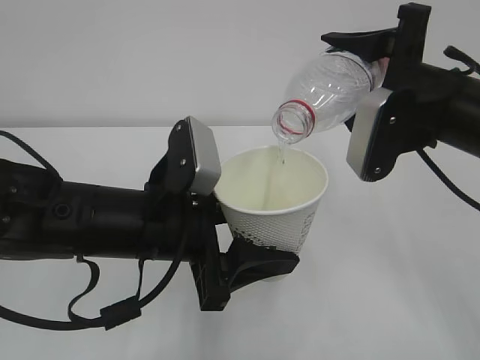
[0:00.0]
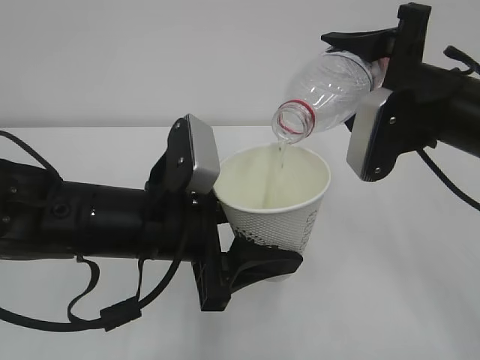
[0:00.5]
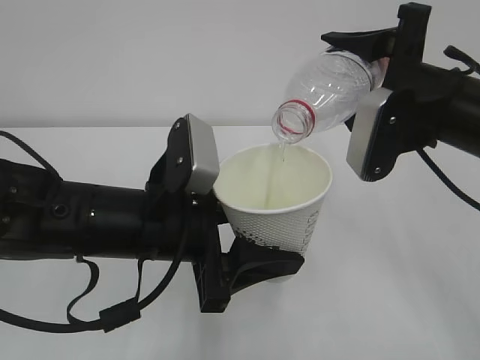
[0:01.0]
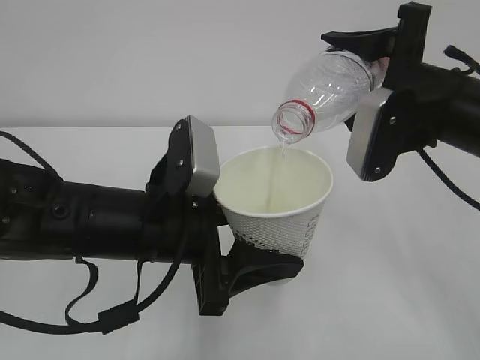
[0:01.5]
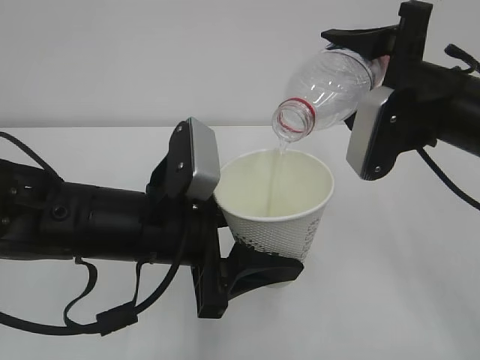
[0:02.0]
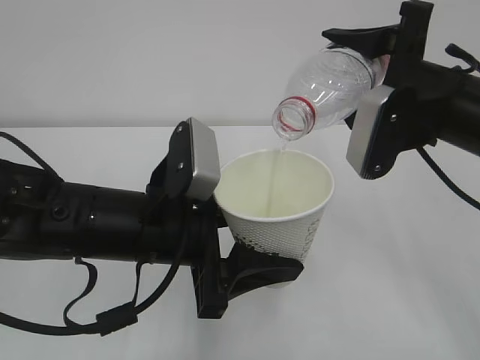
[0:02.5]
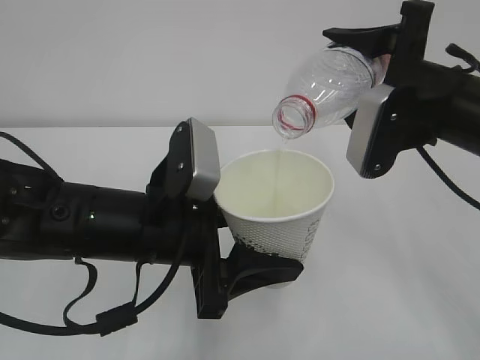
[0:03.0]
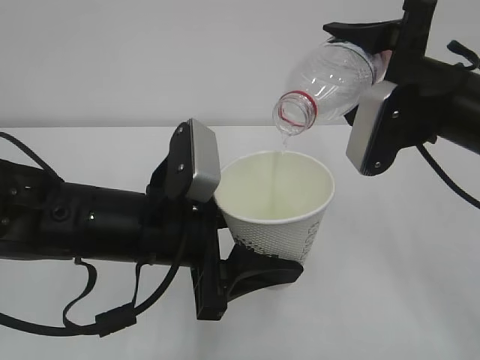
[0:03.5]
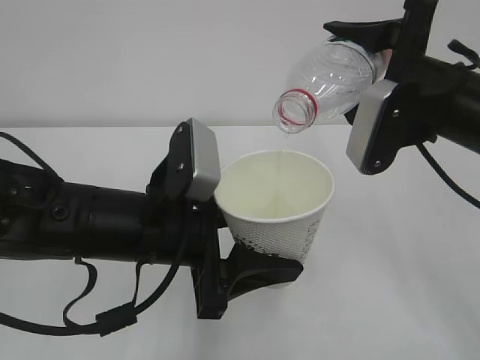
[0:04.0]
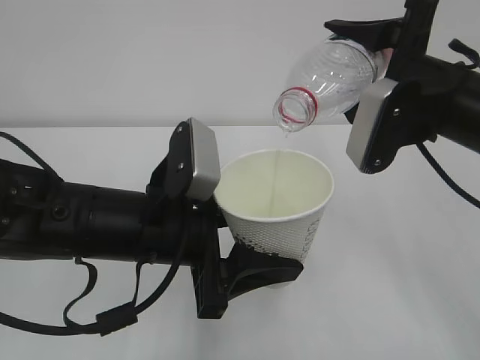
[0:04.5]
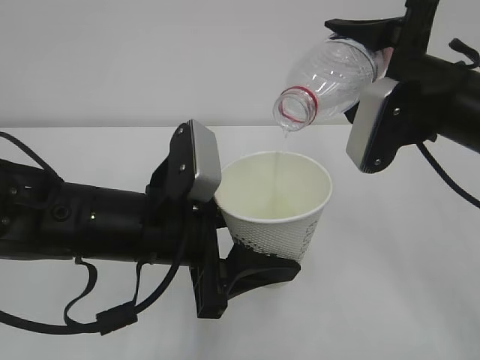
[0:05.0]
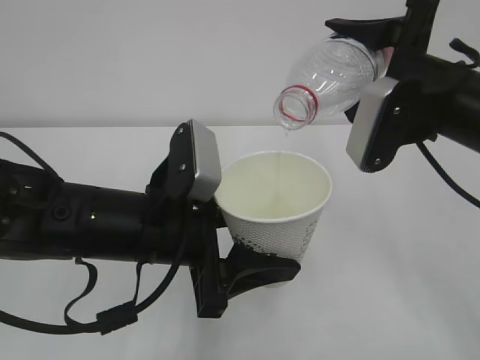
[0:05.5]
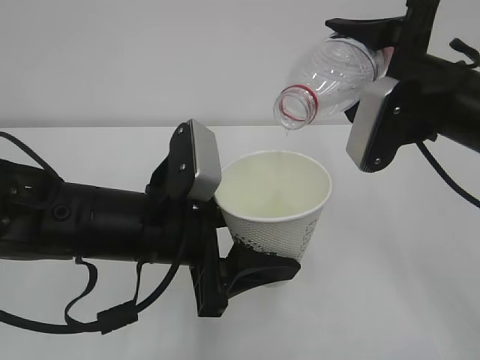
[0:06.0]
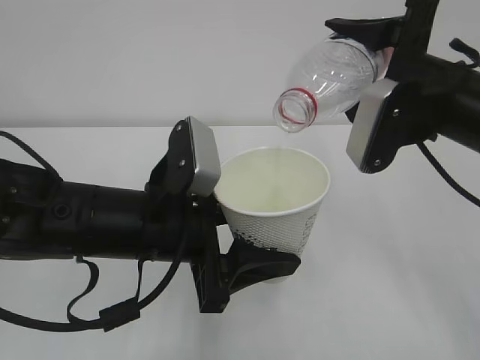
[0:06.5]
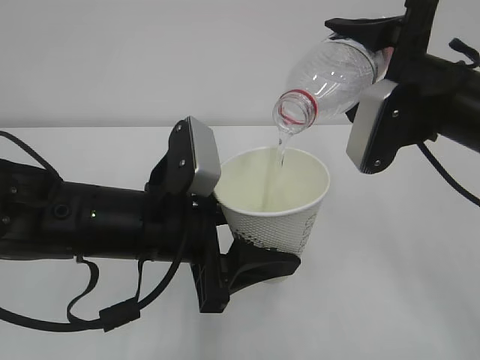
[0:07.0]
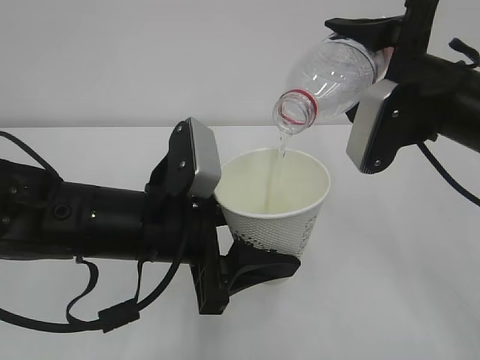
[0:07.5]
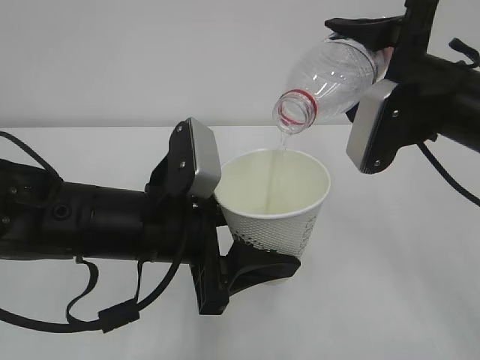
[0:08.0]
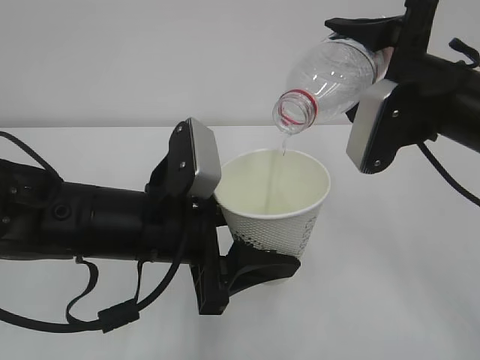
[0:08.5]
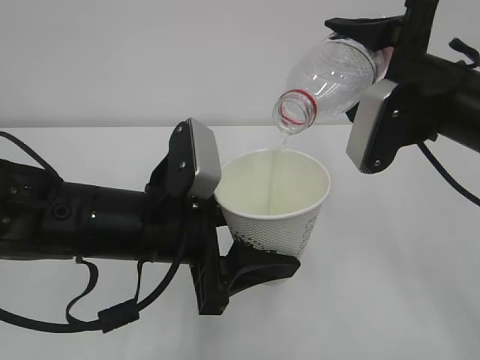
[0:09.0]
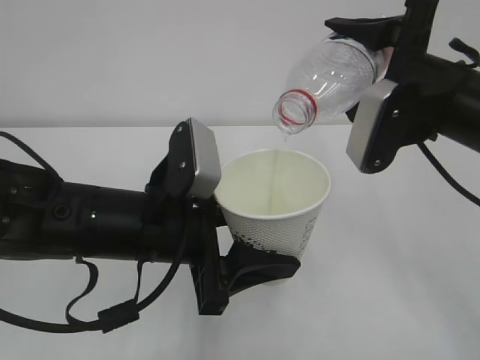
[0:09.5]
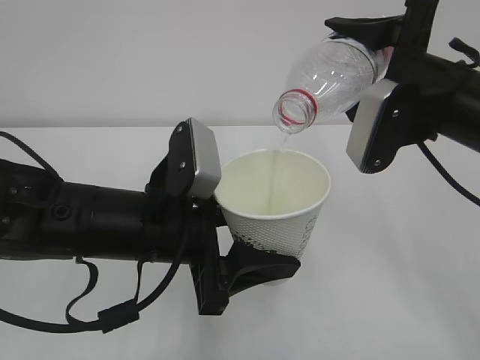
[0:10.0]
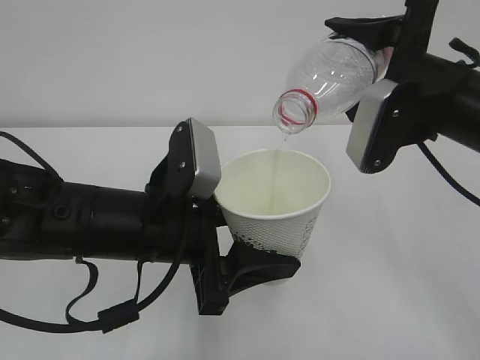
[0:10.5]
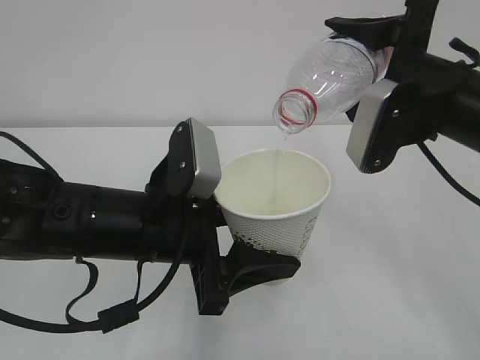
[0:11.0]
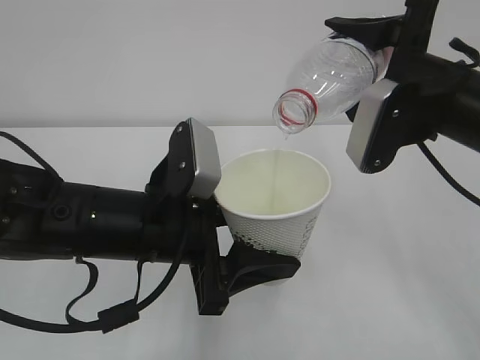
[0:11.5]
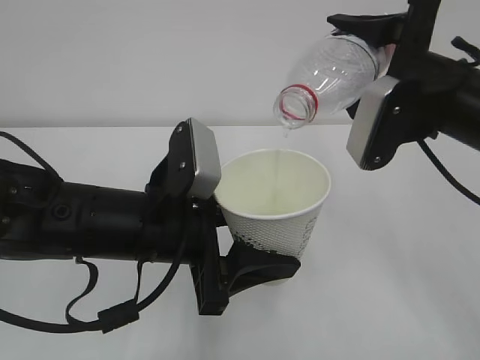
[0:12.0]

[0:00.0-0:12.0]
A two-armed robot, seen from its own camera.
0:00.0 to 0:12.0: The two grippers keep their place.

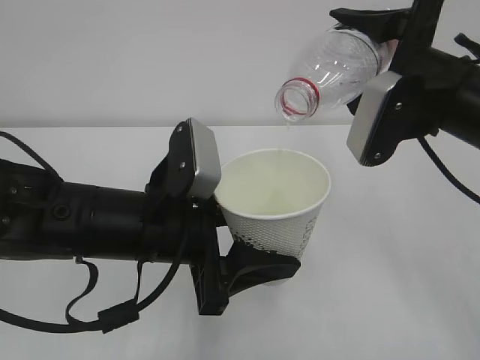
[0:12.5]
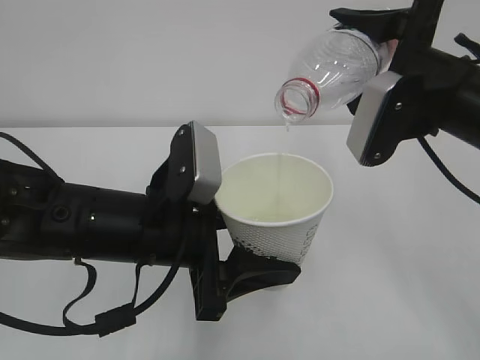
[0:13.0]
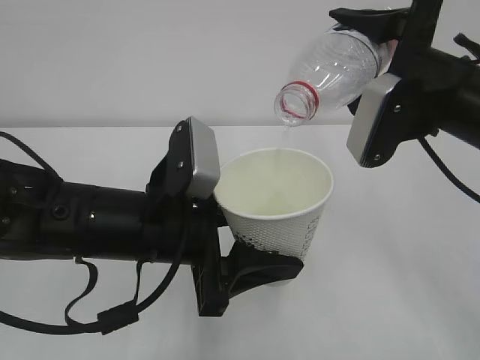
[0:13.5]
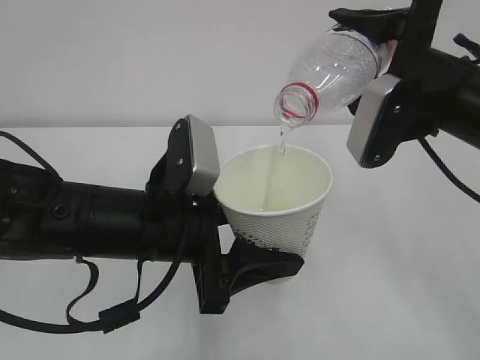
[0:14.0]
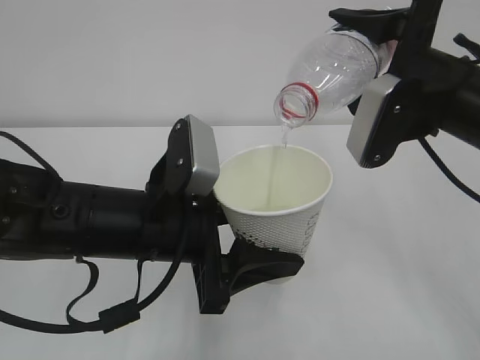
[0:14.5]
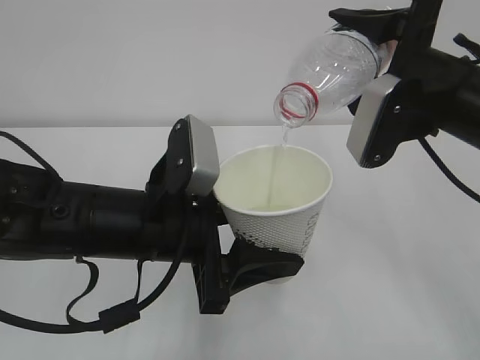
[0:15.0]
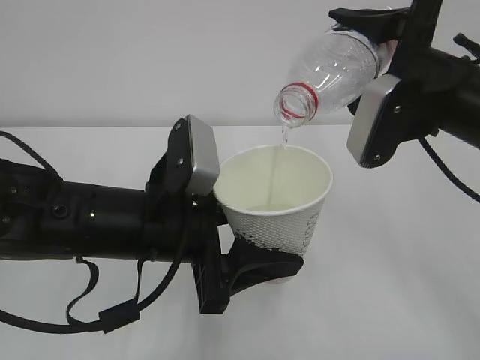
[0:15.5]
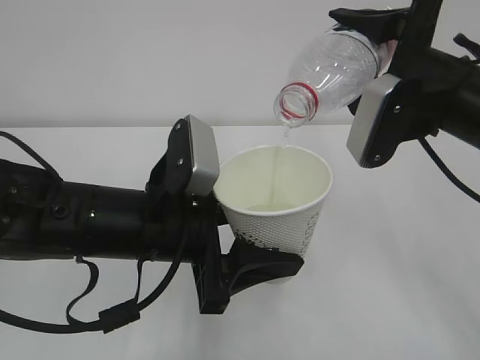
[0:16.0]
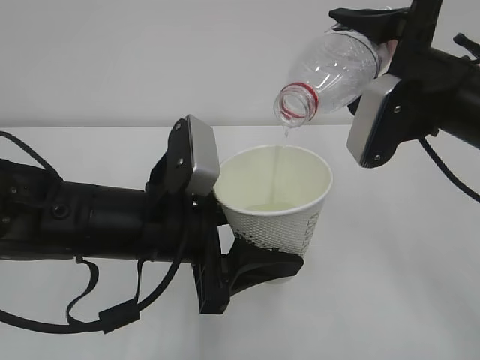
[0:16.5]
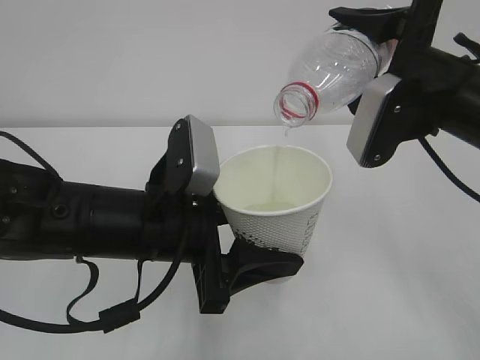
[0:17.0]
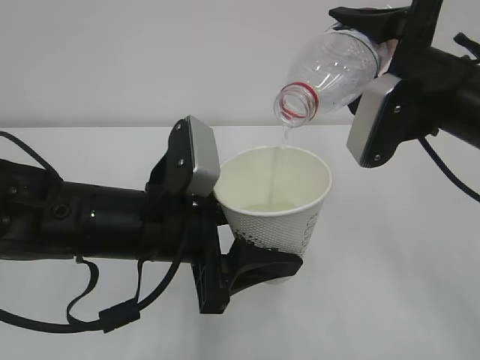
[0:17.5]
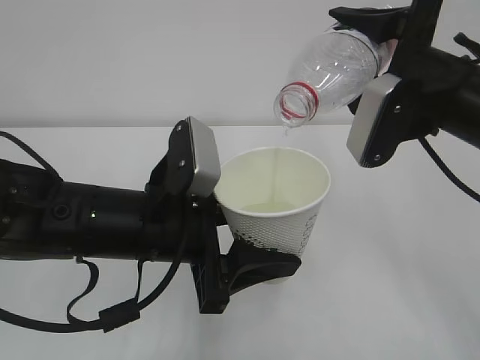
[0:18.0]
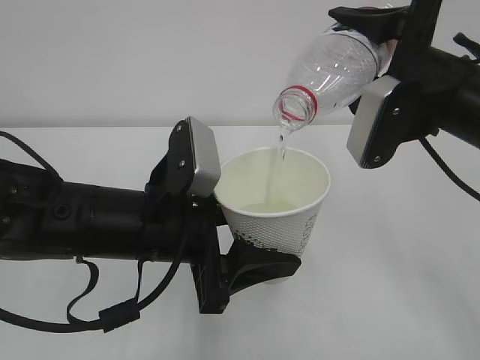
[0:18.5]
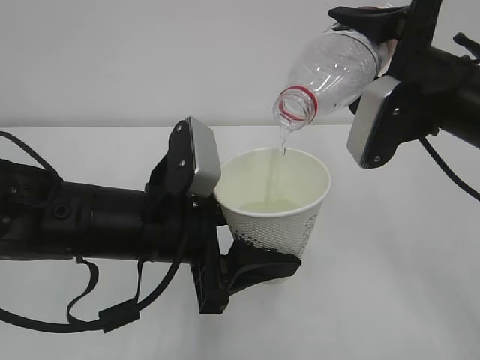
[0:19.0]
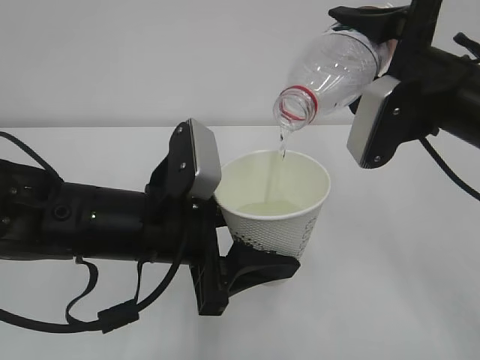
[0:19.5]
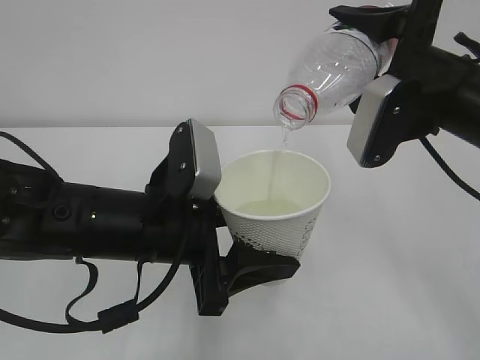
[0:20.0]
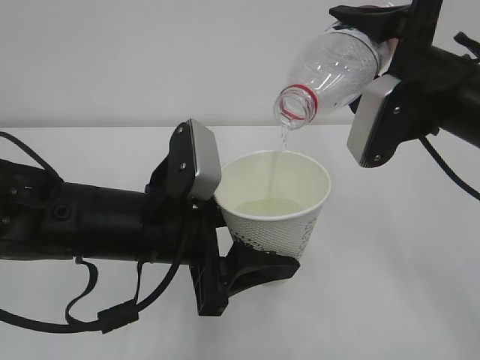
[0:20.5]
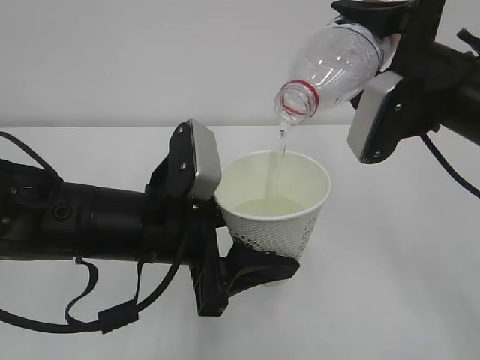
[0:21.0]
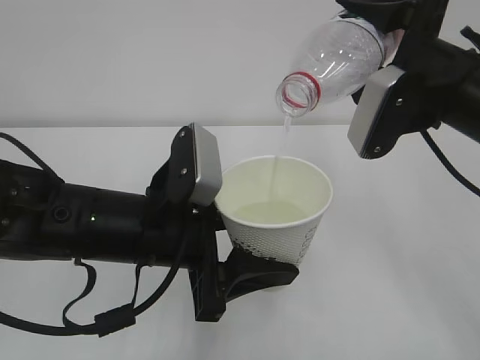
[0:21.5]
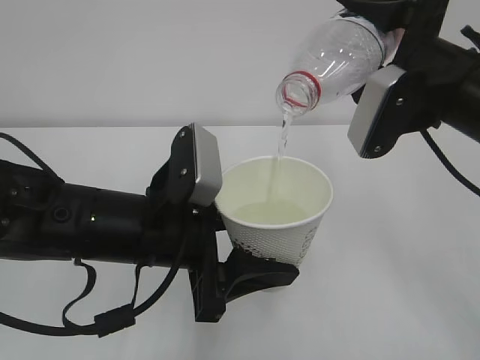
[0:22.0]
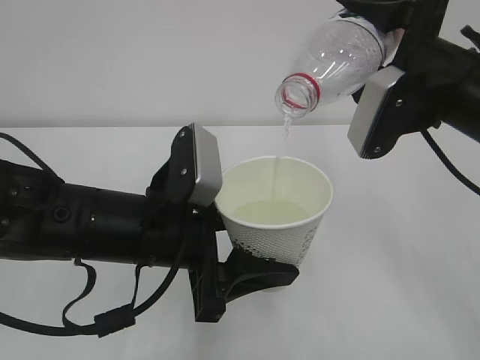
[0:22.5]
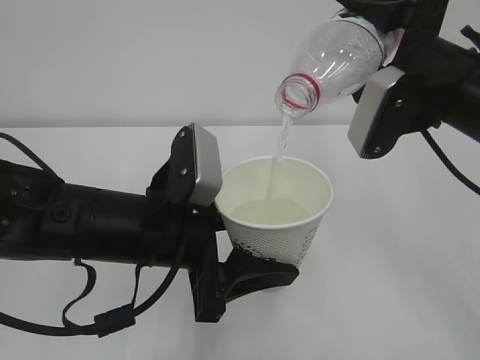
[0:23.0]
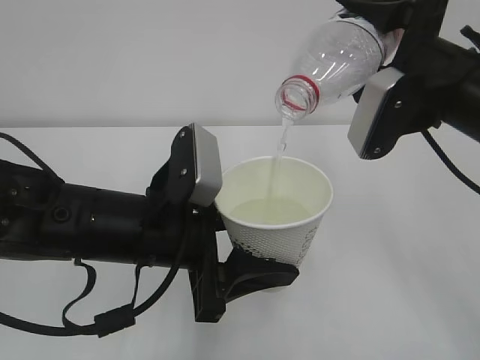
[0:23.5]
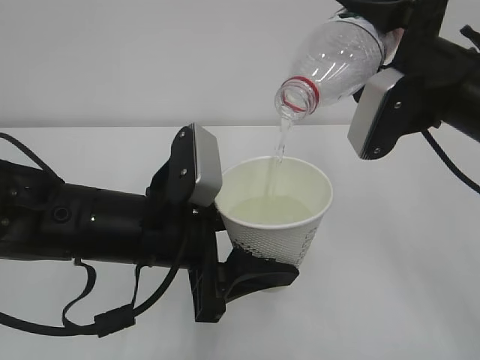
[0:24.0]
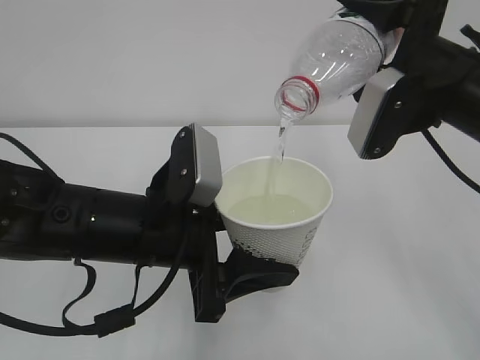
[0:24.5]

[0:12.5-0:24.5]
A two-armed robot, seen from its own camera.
0:12.5 to 0:20.5: Neither gripper changes place.
0:20.5 to 0:24.5: The two grippers keep their place.

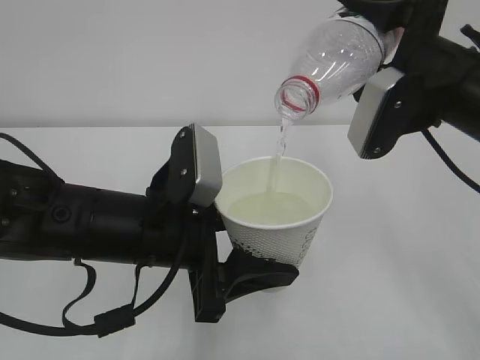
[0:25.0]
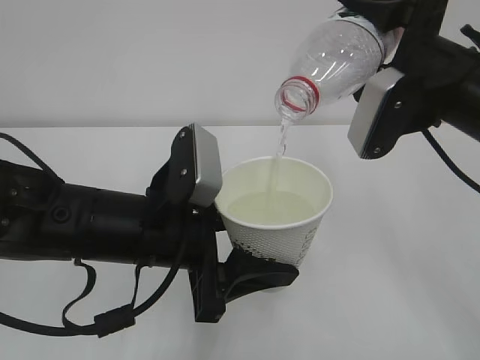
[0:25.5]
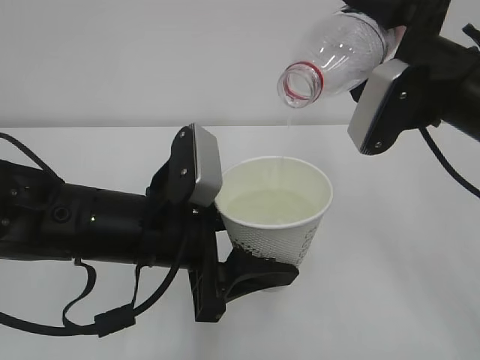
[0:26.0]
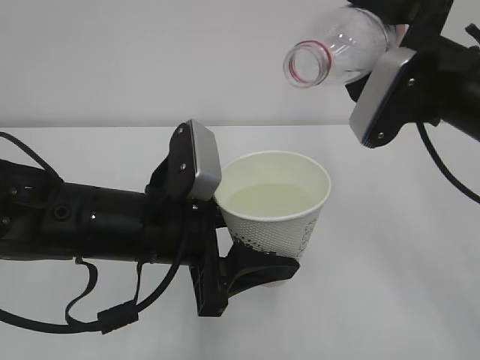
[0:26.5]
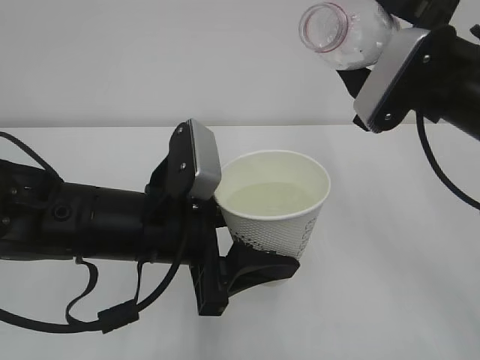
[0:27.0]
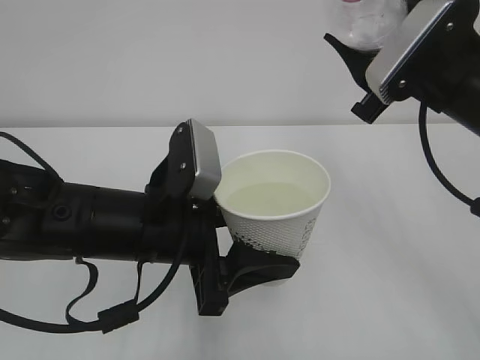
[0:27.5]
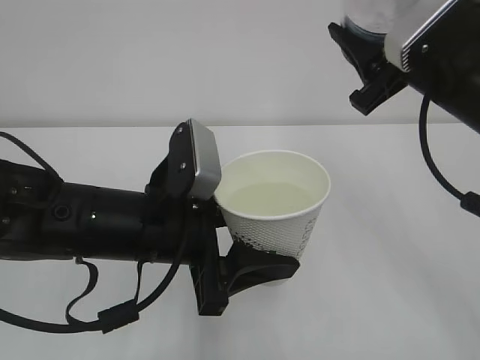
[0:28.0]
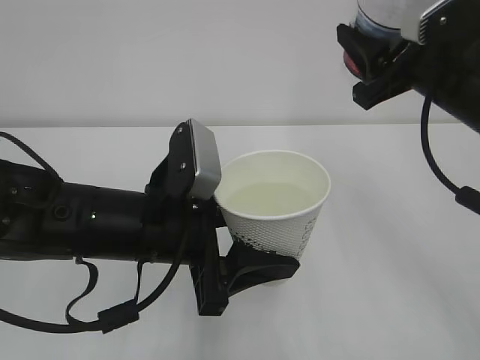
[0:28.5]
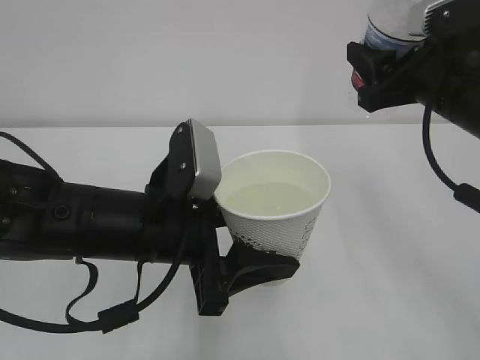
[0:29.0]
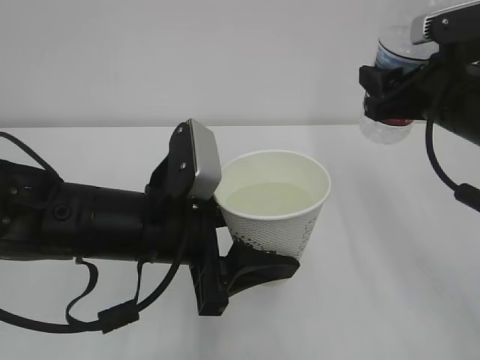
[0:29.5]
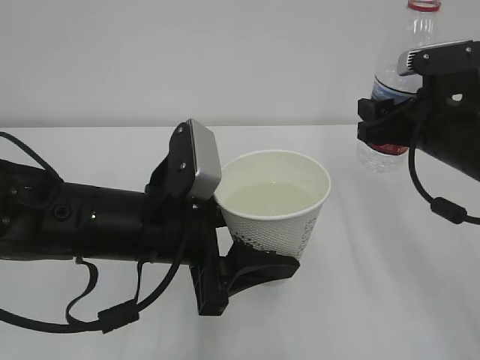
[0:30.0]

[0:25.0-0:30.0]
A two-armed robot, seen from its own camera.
0:27.5 to 0:30.0: The right gripper moves downward, approximately 5 cm.
